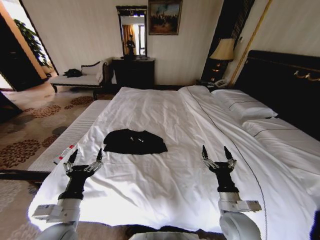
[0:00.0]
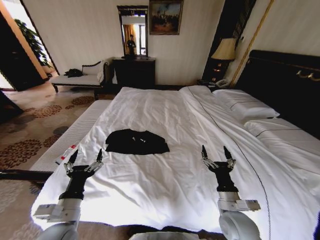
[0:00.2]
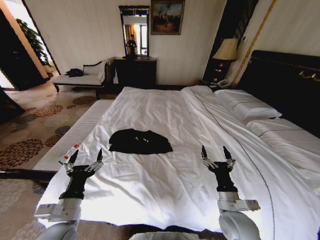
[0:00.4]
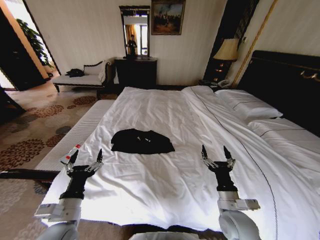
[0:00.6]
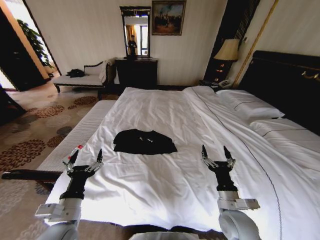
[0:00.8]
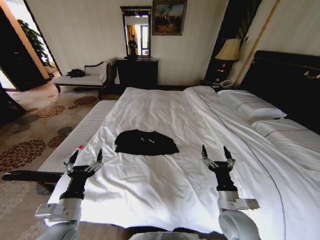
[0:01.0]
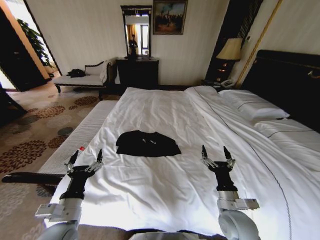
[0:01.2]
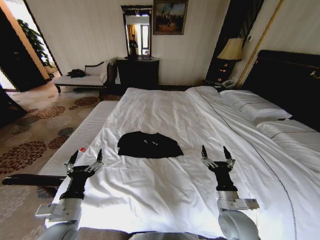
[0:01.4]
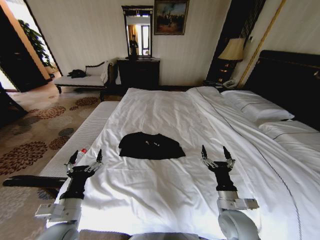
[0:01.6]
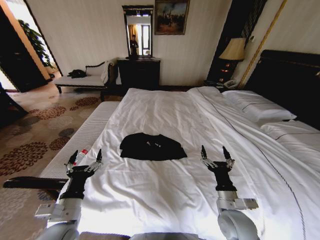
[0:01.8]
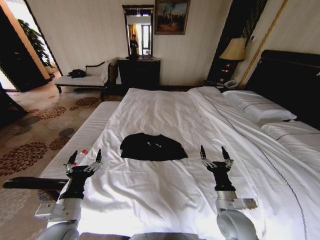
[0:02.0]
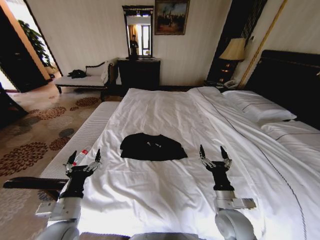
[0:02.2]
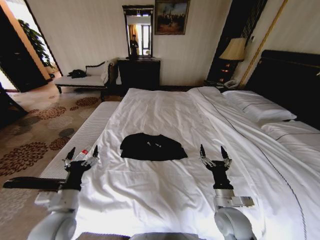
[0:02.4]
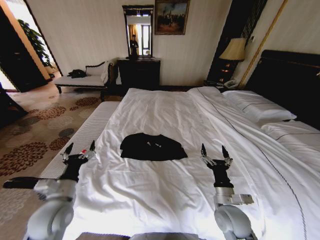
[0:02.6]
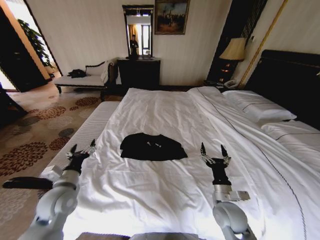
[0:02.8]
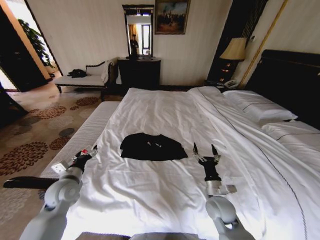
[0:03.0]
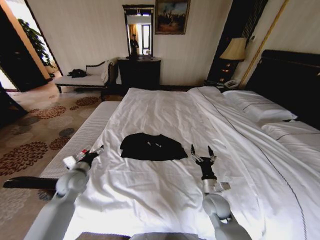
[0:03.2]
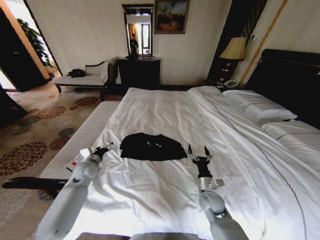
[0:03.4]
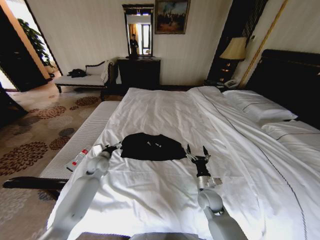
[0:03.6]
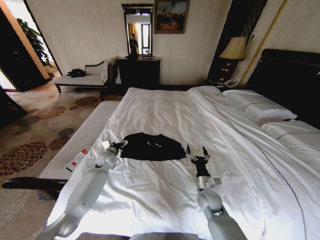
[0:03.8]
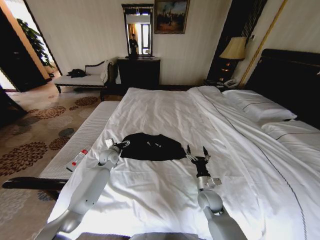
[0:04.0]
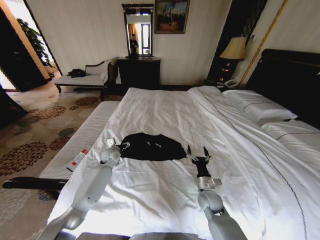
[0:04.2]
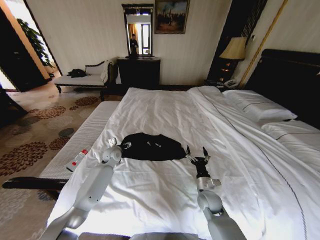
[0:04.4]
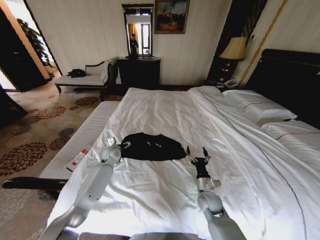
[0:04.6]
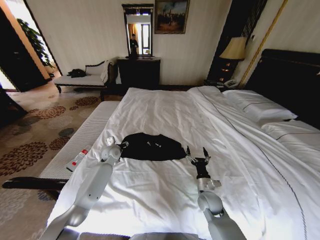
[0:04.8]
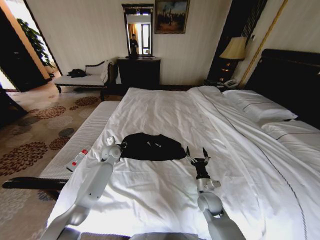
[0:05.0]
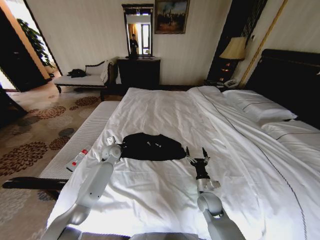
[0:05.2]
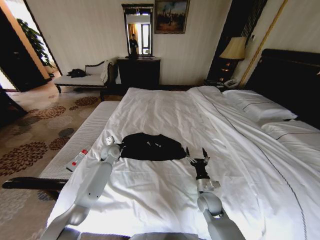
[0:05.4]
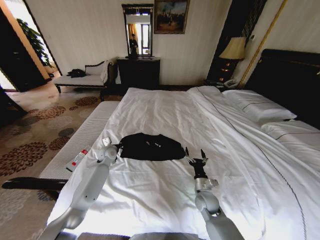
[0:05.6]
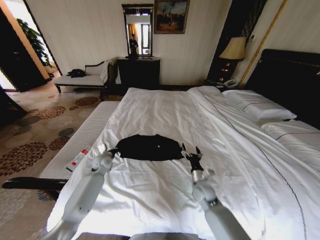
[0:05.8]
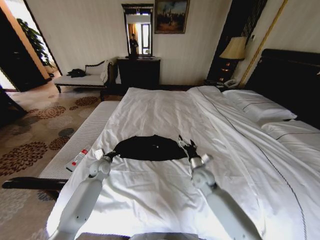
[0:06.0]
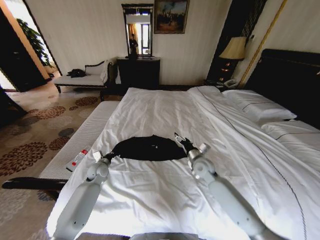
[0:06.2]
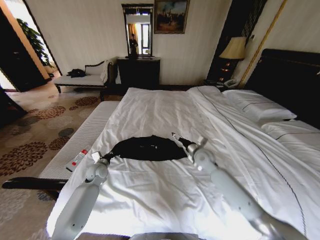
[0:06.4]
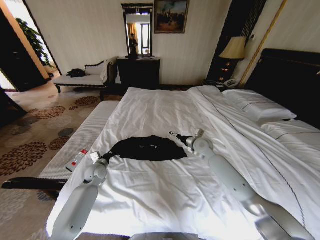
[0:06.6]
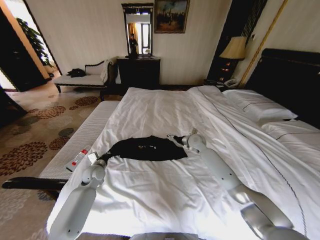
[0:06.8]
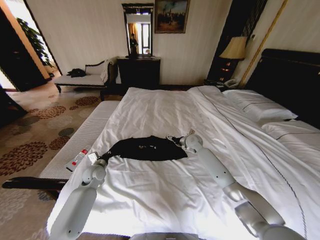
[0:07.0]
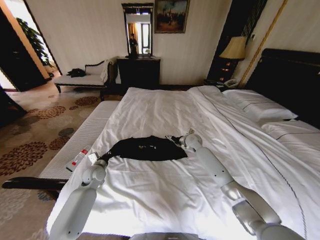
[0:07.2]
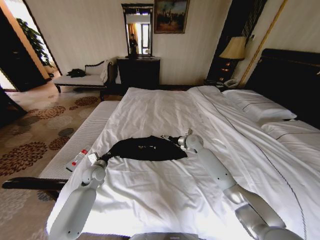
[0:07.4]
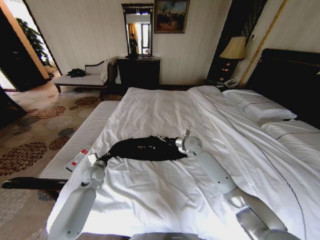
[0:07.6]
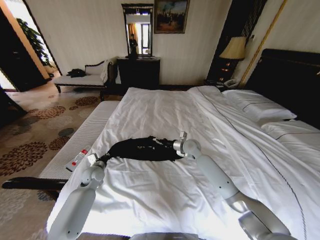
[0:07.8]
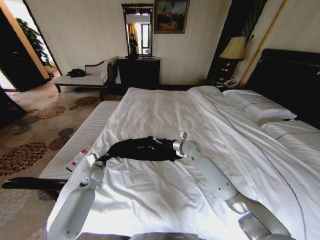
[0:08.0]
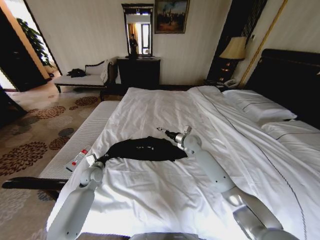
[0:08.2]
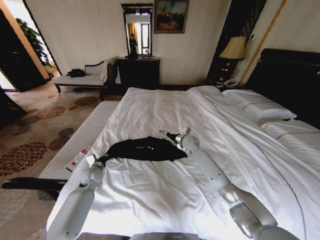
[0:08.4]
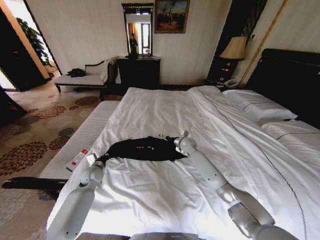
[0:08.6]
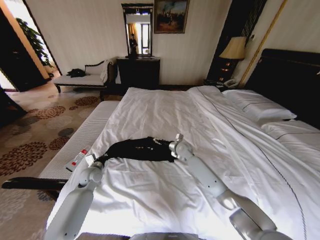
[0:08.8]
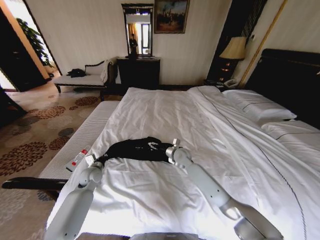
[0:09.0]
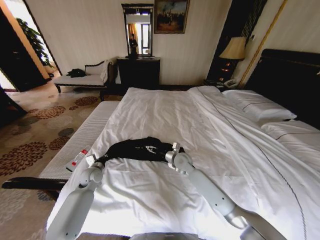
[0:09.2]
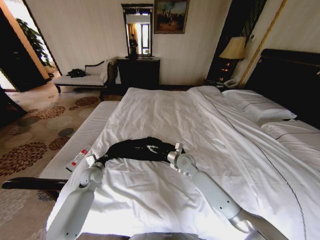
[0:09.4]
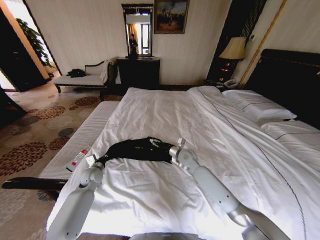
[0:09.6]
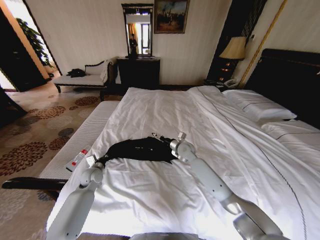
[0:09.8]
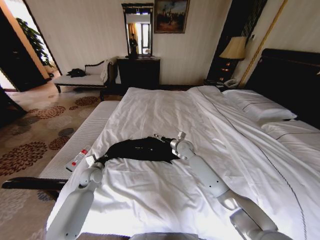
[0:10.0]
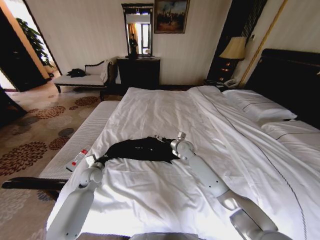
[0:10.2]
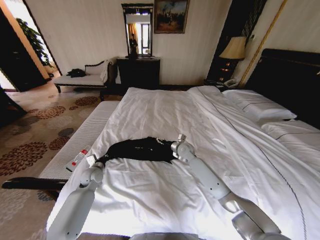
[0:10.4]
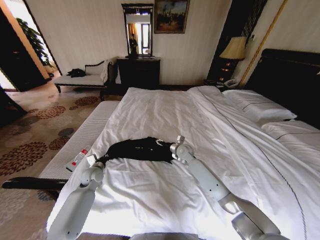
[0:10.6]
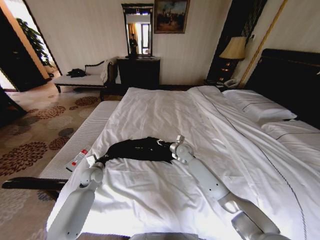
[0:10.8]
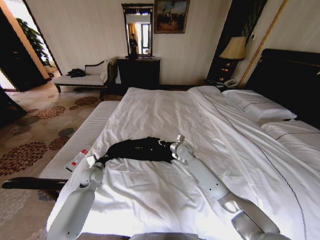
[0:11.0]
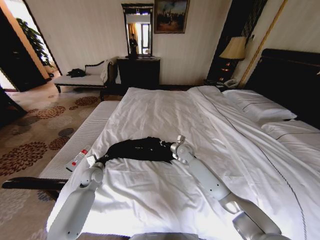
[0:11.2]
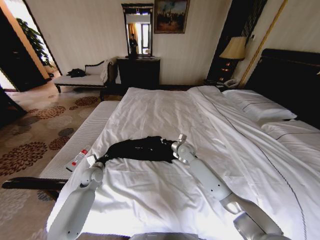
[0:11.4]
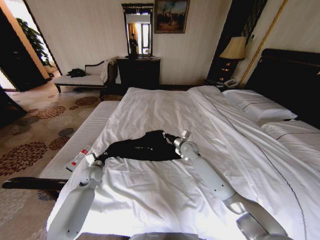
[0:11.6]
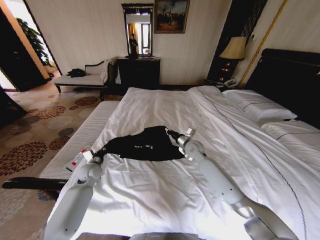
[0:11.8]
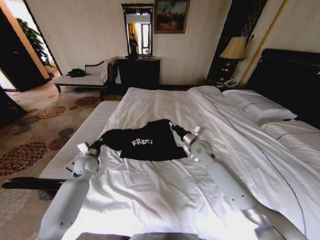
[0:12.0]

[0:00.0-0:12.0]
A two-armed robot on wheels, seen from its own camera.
Task of the whole recording: Fold the clothes on the bed.
0:01.6 to 0:03.0: The left gripper moves forward and to the left, approximately 15 cm. The right gripper travels forward by approximately 5 cm.
0:03.0 to 0:04.4: The left gripper travels forward and to the right by approximately 25 cm, while the right gripper goes approximately 5 cm downward.
0:04.4 to 0:06.0: The right gripper heads forward and upward, covering about 10 cm. Meanwhile the left gripper goes about 10 cm to the left and backward, and closes.
0:06.0 to 0:07.6: The right gripper heads forward and upward, covering approximately 20 cm.
0:07.6 to 0:09.0: The right gripper travels to the left and backward by about 10 cm.
0:09.0 to 0:10.4: The grippers move only a little.
0:10.4 to 0:12.0: The left gripper moves upward, some 5 cm; the right gripper travels upward and backward by about 10 cm, and closes its fingers.

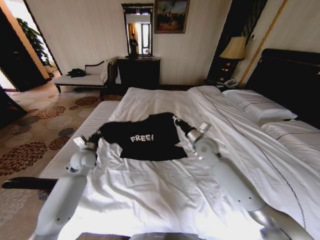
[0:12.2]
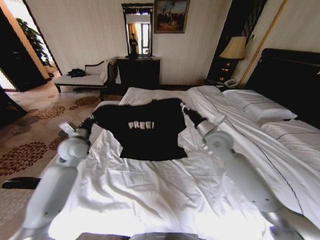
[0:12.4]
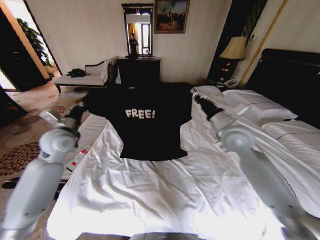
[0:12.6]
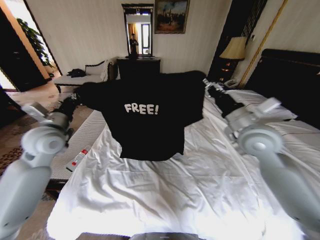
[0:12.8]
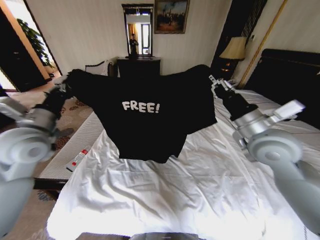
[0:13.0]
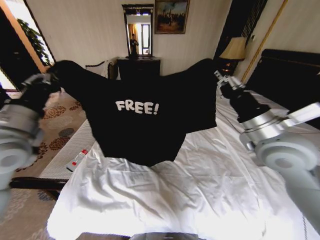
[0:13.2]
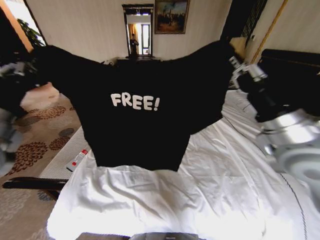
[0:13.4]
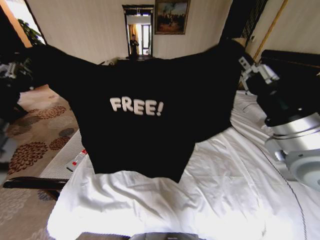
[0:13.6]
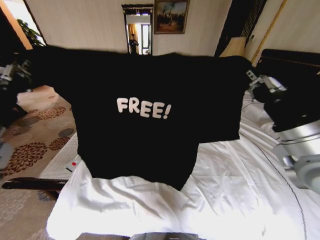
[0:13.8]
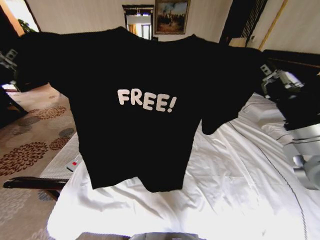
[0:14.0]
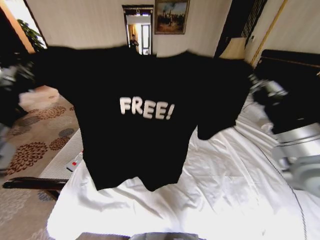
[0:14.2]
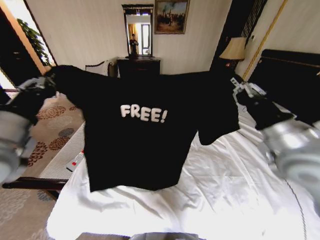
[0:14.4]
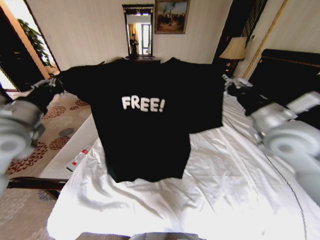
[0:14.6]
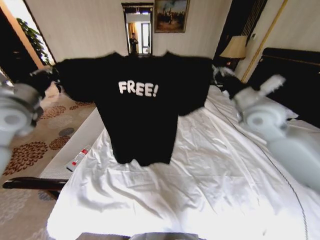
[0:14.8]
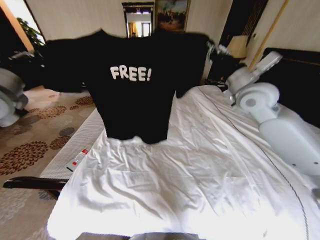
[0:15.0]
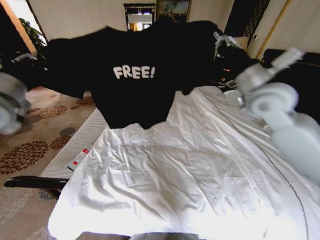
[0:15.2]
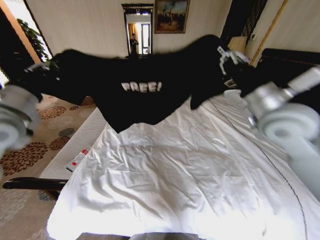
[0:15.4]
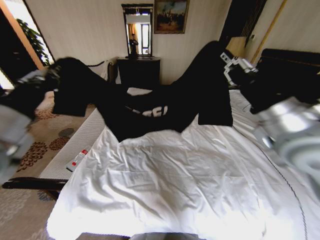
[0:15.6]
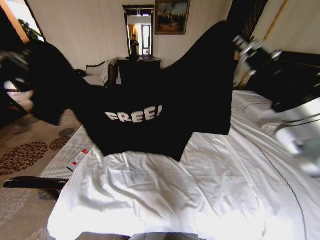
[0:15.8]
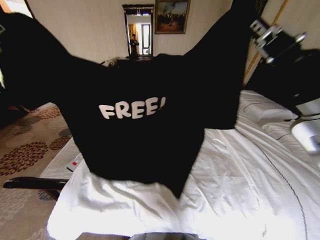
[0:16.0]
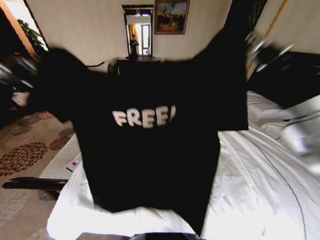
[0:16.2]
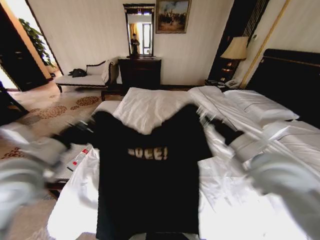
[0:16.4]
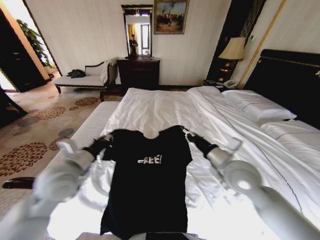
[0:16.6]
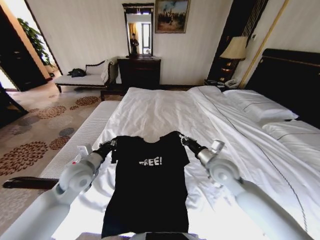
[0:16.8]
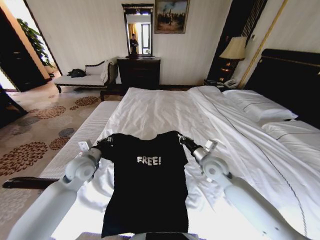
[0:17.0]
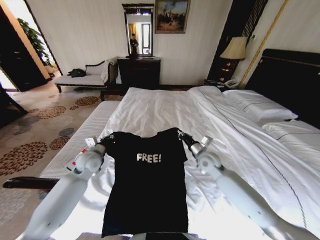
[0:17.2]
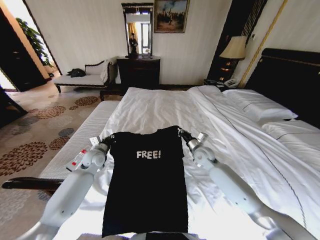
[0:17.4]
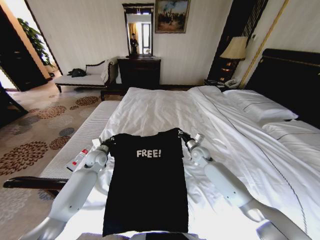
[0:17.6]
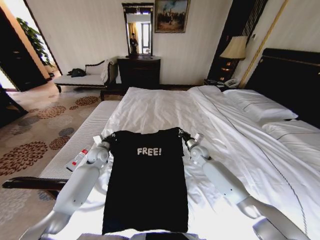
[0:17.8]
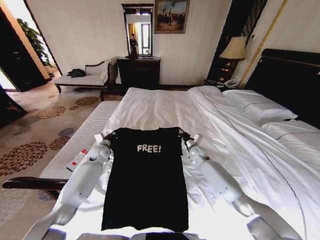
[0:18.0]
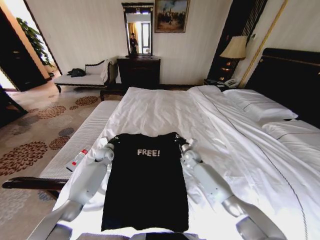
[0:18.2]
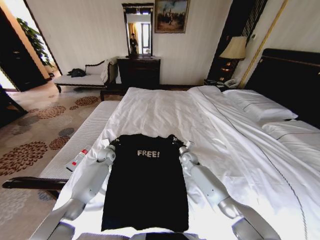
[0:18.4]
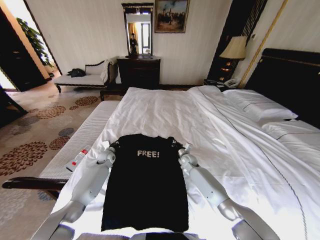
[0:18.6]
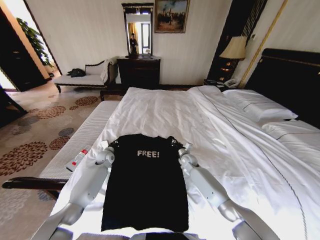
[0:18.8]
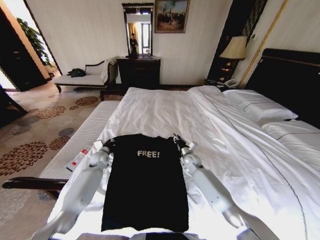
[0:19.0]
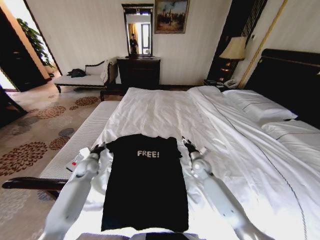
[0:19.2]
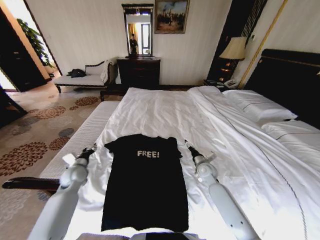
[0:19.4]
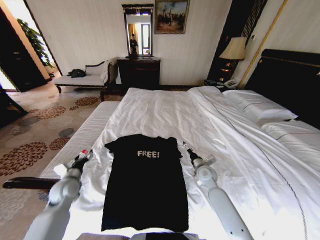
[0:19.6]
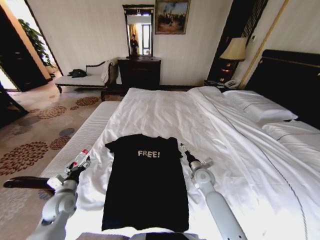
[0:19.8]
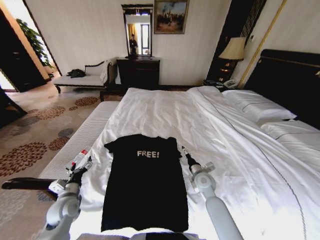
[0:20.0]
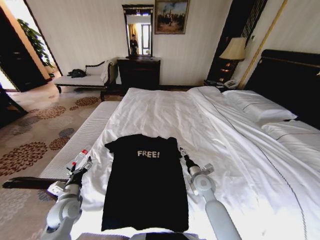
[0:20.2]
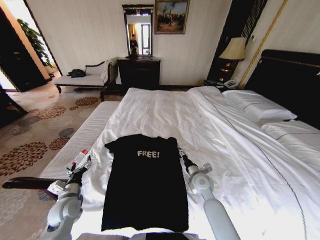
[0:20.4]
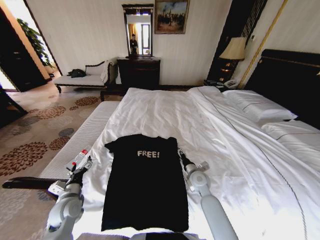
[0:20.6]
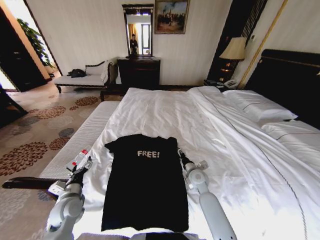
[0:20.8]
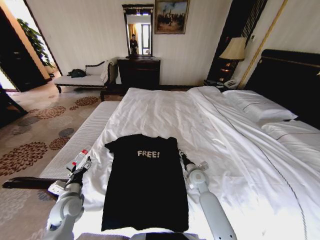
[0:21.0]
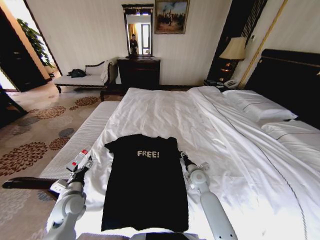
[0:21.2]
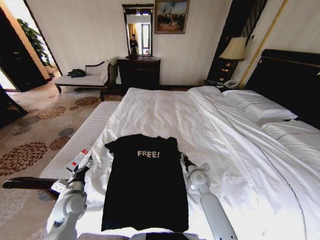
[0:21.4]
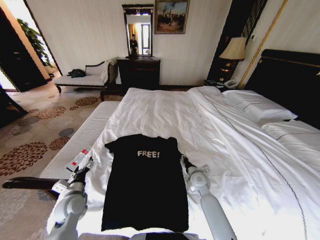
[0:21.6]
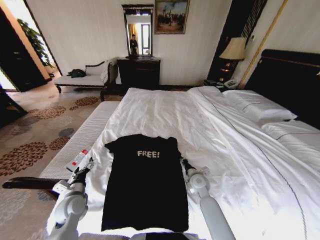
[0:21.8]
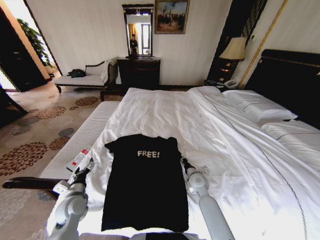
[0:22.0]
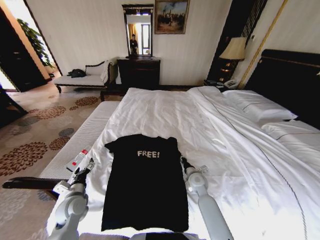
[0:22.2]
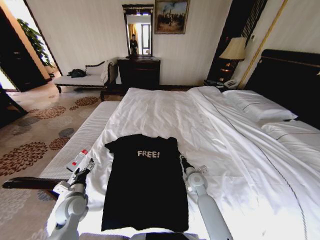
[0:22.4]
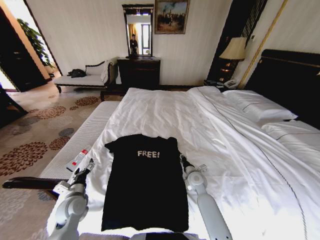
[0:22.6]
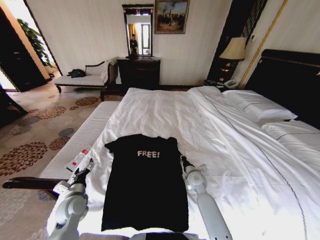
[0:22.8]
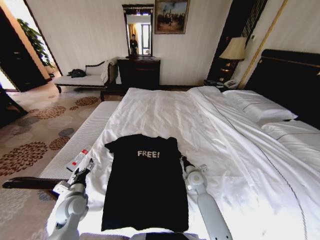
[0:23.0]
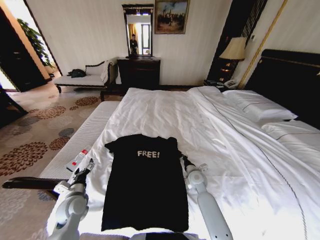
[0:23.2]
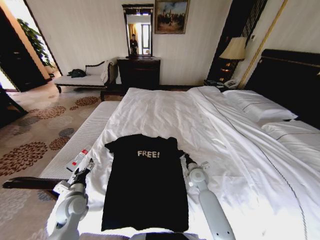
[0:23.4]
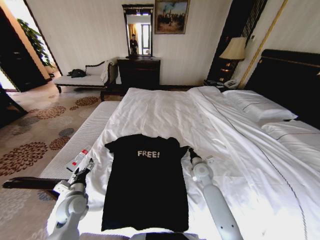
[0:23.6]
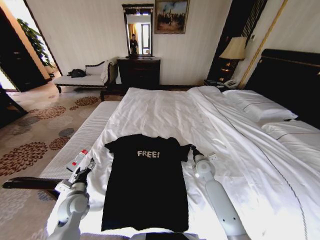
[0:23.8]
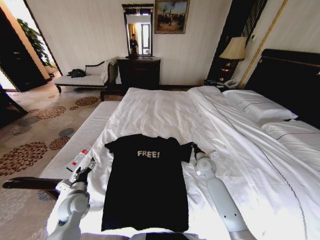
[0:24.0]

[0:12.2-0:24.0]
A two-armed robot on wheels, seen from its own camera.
Task of the whole recording: Fold the clothes on the bed.
0:12.2 to 0:13.6: The left gripper is displaced upward and backward by some 30 cm; the right gripper heads backward and upward, covering roughly 25 cm.
0:13.6 to 0:15.2: The right gripper shifts roughly 15 cm forward, while the left gripper moves forward and to the left, some 15 cm.
0:15.2 to 0:16.6: The right gripper travels downward and backward by roughly 20 cm, while the left gripper travels downward, to the right and backward by roughly 25 cm.
0:16.6 to 0:18.2: The right gripper shifts some 35 cm downward and forward; the left gripper travels forward and downward by some 35 cm.
0:18.2 to 0:19.6: The left gripper is displaced backward and to the left by roughly 25 cm, and opens its fingers. Meanwhile the right gripper moves backward, approximately 15 cm, and opens its fingers.
0:19.6 to 0:21.0: The left gripper heads backward, covering roughly 5 cm.
0:21.0 to 0:22.6: The grippers stay close to where they were, moving slightly.
0:22.6 to 0:24.0: The right gripper travels forward and to the right by approximately 10 cm, and closes up.
